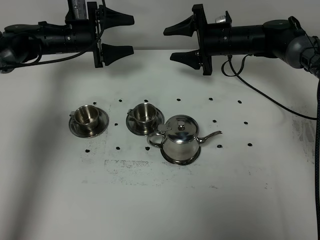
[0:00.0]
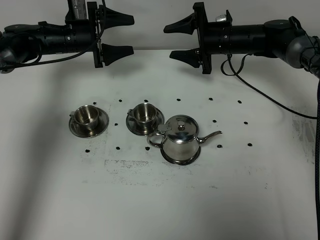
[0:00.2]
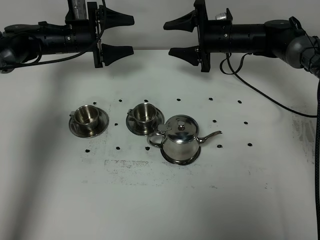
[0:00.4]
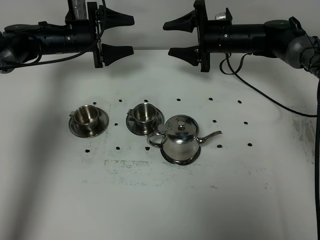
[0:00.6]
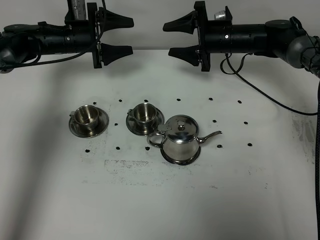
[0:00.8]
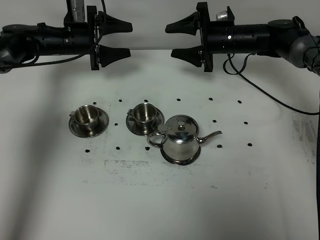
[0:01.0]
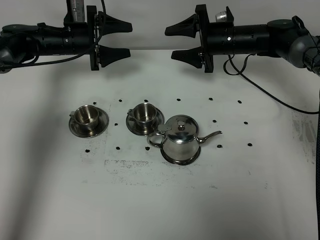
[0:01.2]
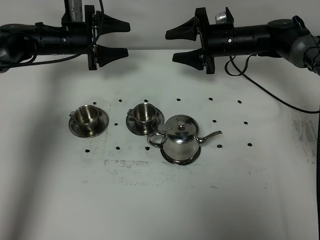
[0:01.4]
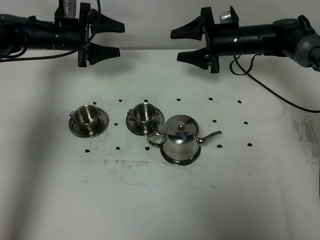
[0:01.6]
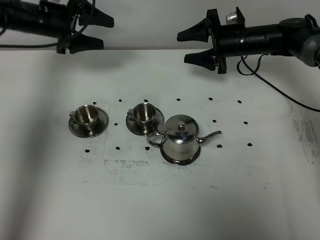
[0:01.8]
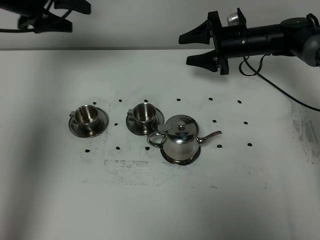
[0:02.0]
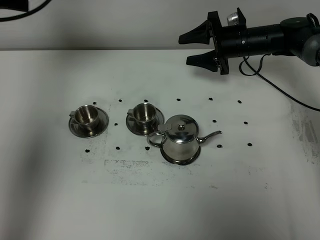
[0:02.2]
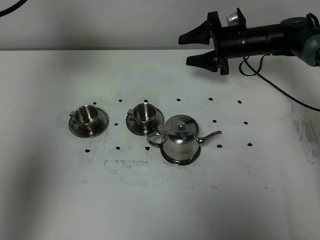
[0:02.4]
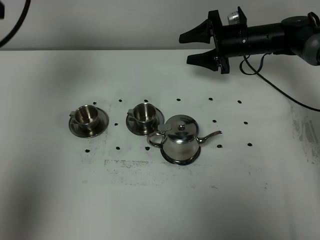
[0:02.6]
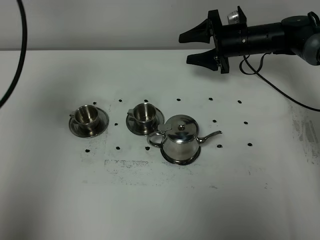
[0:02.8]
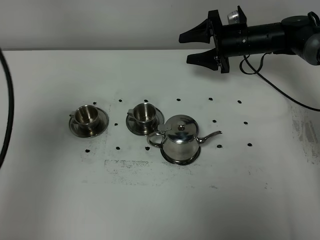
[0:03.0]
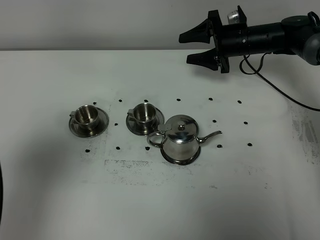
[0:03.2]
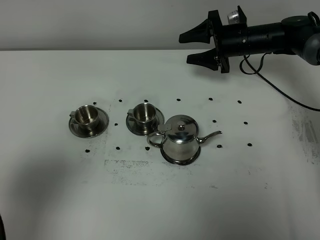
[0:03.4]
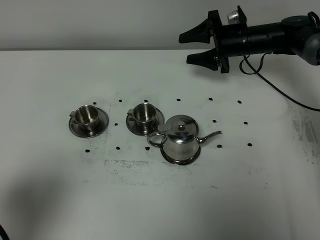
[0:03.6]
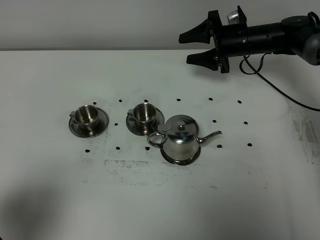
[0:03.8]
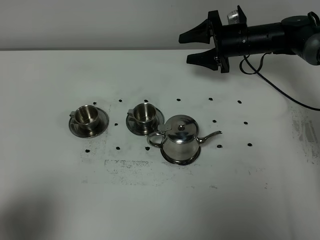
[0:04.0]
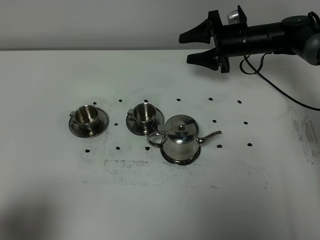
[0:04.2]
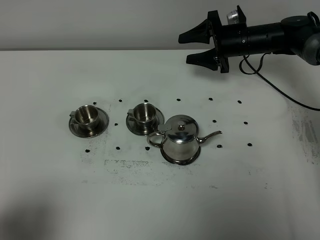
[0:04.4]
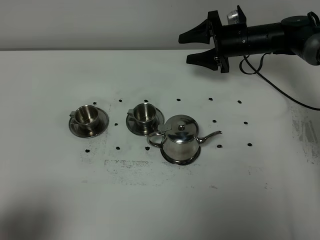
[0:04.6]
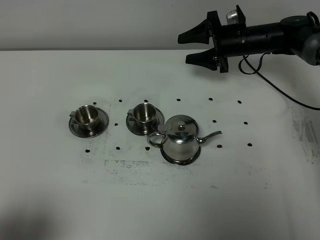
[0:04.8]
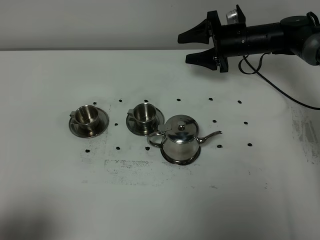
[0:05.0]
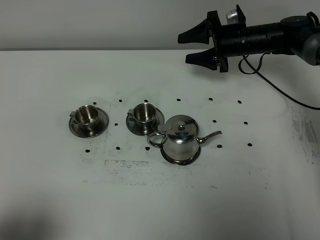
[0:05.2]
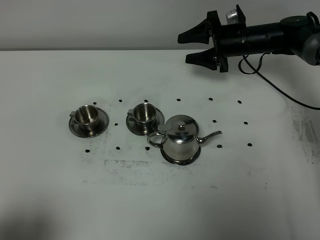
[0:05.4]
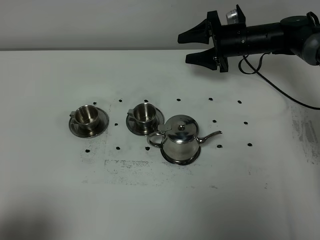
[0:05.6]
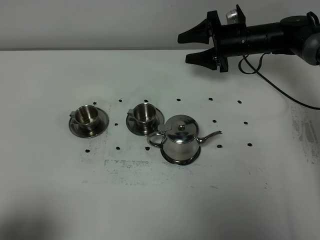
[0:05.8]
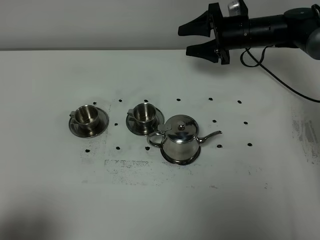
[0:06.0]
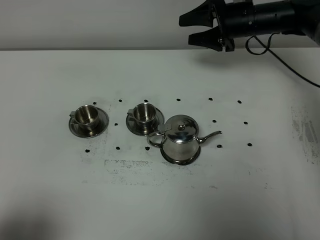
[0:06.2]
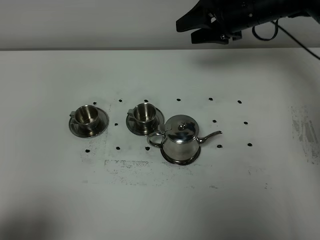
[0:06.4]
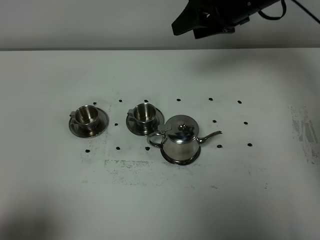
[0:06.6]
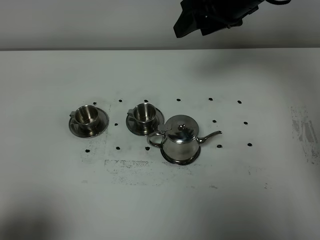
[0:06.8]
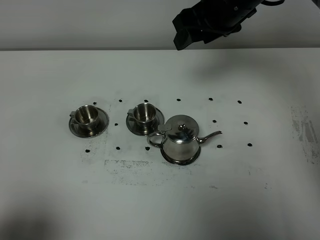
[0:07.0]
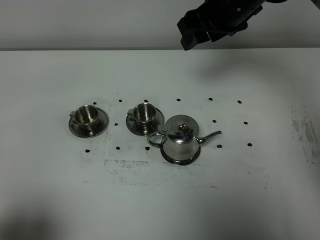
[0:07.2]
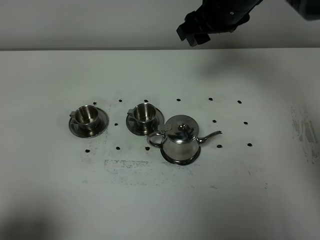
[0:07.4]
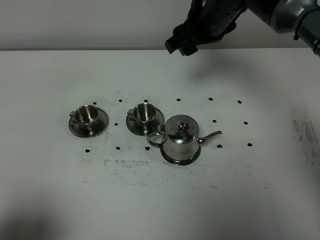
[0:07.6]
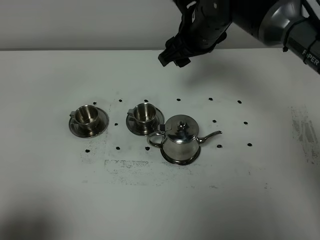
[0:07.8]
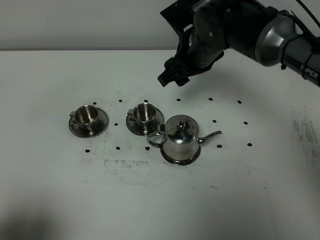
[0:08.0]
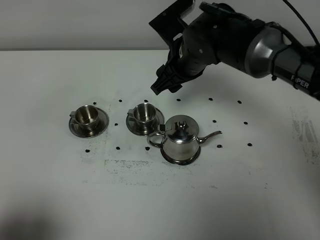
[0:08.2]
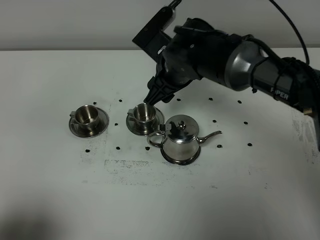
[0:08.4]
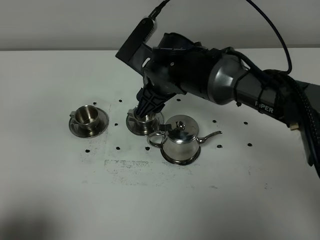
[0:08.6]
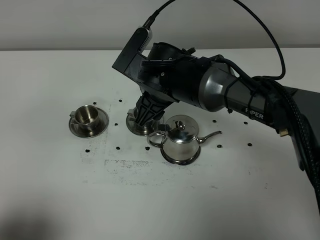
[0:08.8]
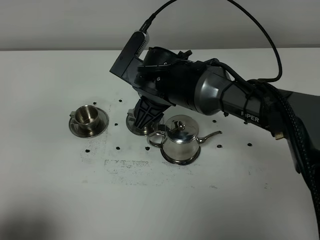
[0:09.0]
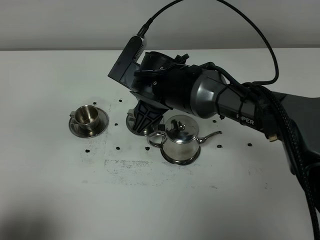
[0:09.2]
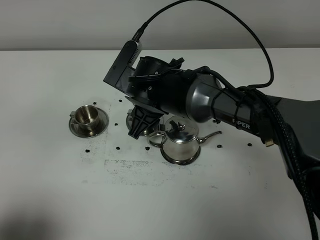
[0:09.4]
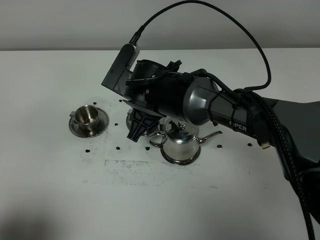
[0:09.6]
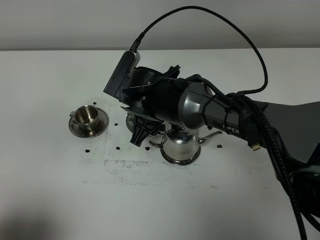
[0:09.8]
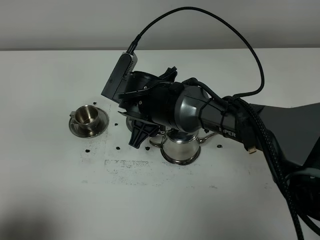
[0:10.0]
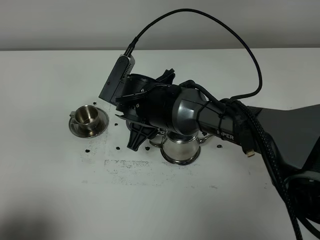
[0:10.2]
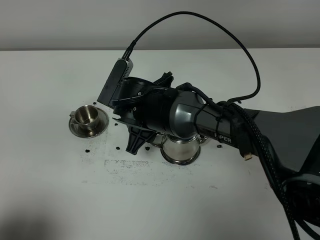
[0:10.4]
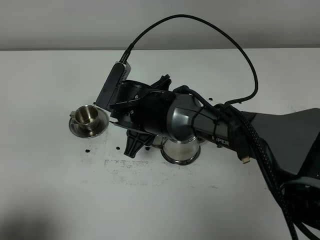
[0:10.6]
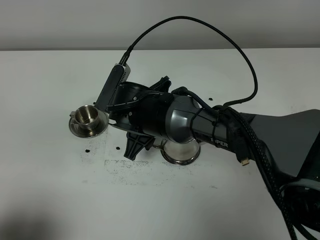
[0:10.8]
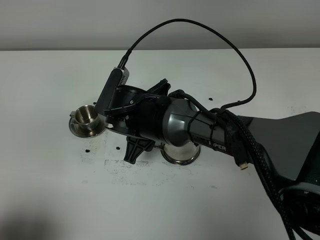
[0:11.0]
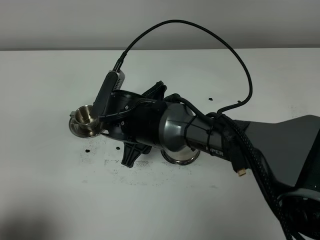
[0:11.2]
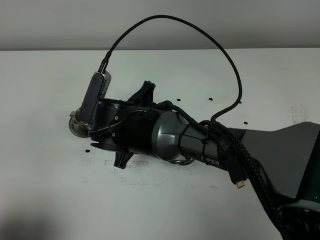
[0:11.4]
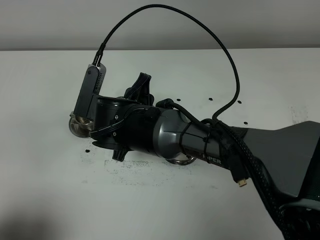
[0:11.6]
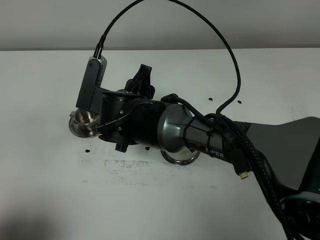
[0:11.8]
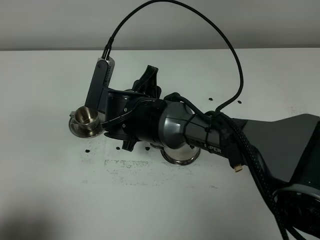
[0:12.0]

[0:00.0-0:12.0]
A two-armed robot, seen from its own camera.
Task of the whole recording: grasp the stainless steel teapot and pour the tea into the two stainless steel teacups one by one, put the stainless steel teapot back in its original place.
0:00.0 to 0:01.6: The grippers make only small movements.
0:01.6 to 0:03.0: The left gripper heads backward and upward, covering roughly 40 cm.
0:03.0 to 0:04.4: The left gripper shifts some 20 cm backward and downward.
0:04.4 to 0:06.0: The grippers stay close to where they were, moving slightly.
0:06.0 to 0:07.6: The right gripper is displaced upward, to the left and backward by about 15 cm.
0:07.6 to 0:09.0: The right gripper heads downward, to the left and backward, covering some 15 cm.
0:10.4 to 0:12.0: There are only small adjustments of the grippers.

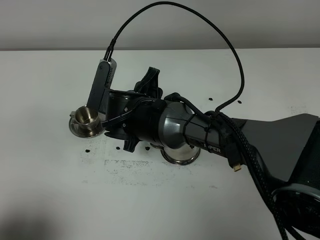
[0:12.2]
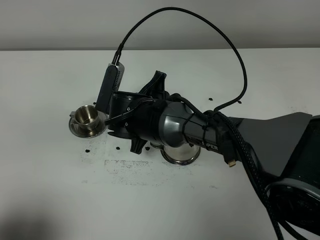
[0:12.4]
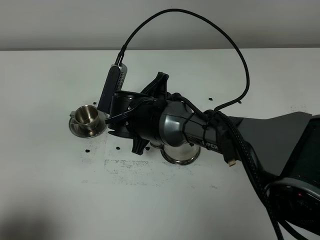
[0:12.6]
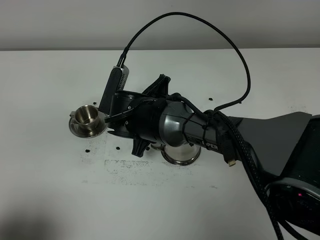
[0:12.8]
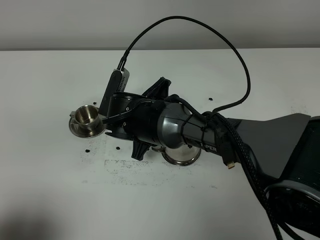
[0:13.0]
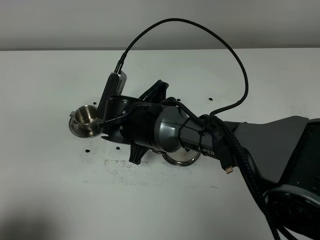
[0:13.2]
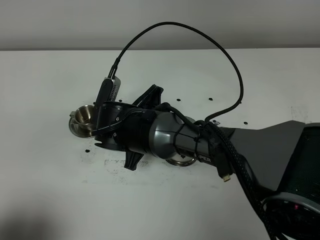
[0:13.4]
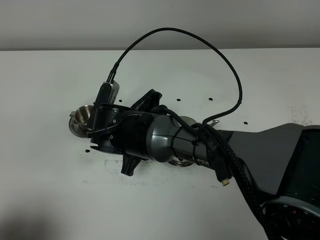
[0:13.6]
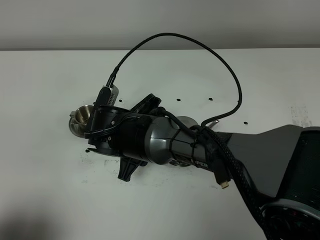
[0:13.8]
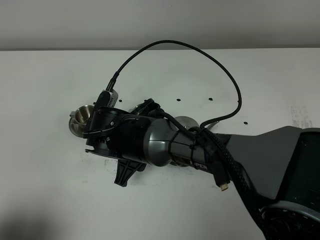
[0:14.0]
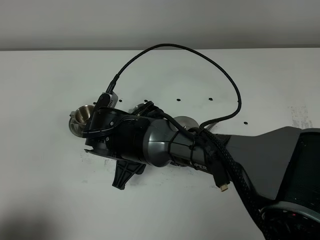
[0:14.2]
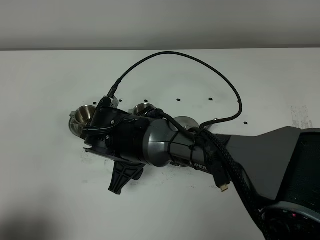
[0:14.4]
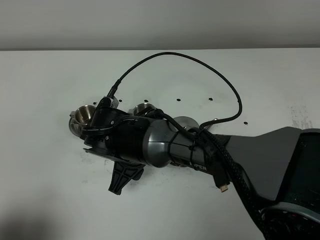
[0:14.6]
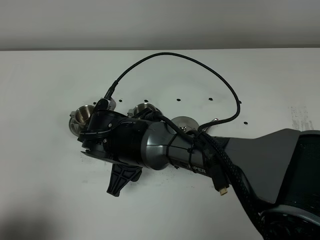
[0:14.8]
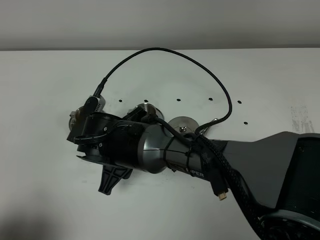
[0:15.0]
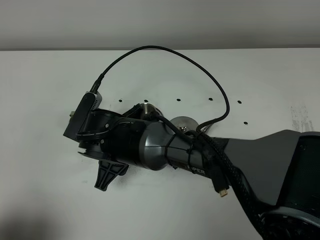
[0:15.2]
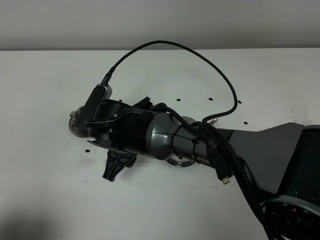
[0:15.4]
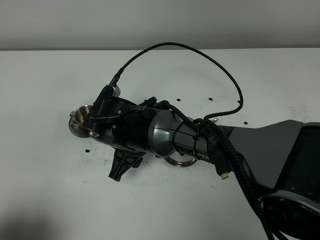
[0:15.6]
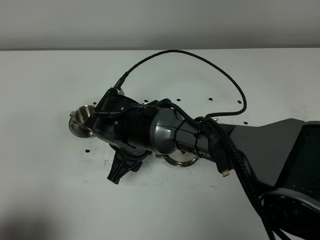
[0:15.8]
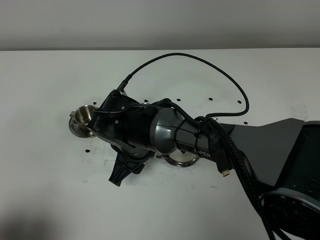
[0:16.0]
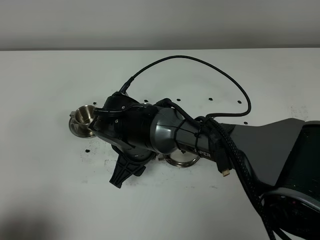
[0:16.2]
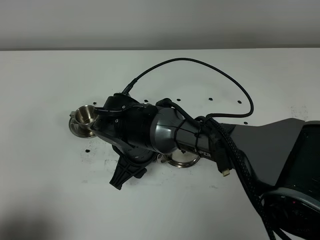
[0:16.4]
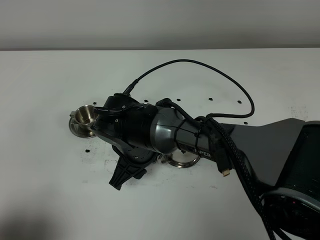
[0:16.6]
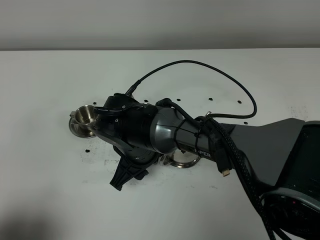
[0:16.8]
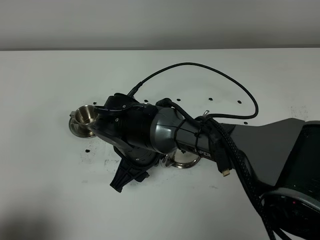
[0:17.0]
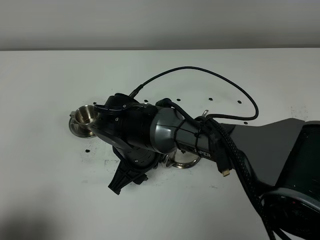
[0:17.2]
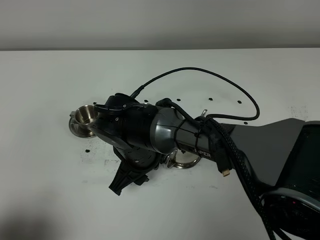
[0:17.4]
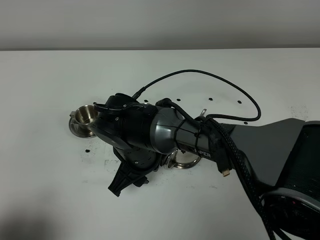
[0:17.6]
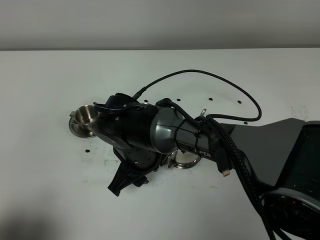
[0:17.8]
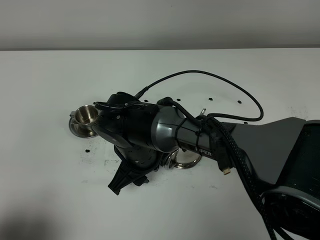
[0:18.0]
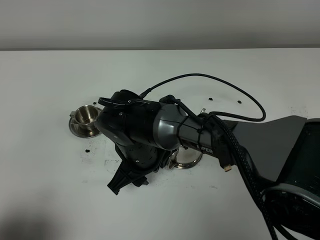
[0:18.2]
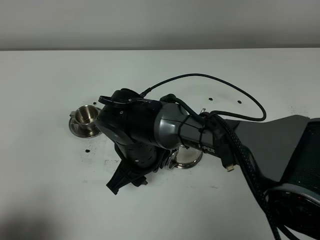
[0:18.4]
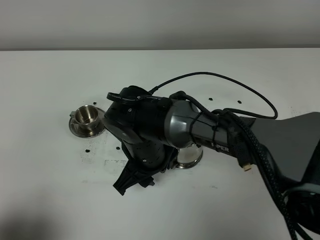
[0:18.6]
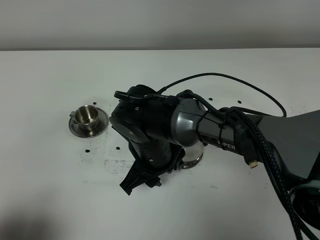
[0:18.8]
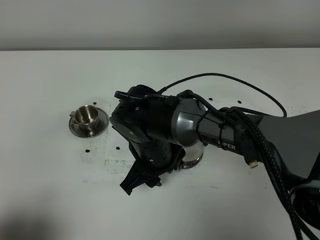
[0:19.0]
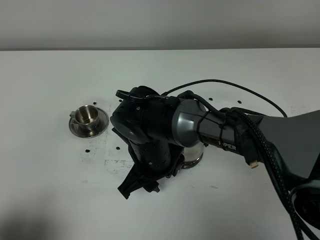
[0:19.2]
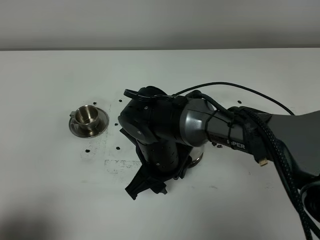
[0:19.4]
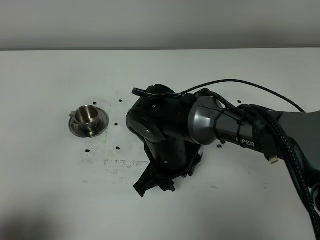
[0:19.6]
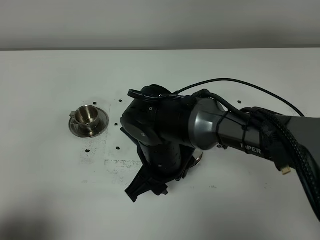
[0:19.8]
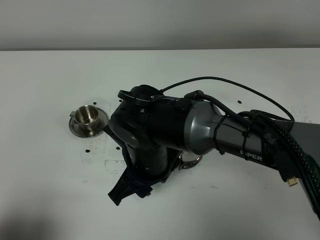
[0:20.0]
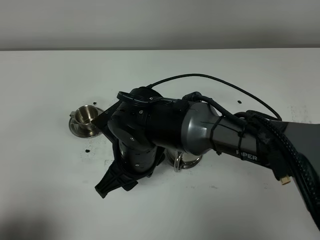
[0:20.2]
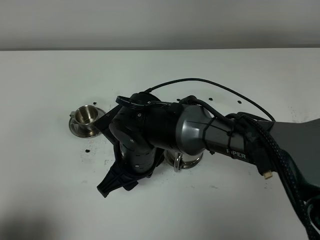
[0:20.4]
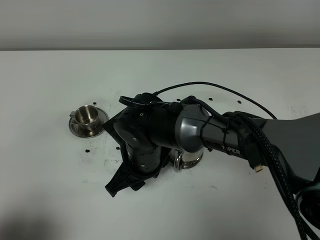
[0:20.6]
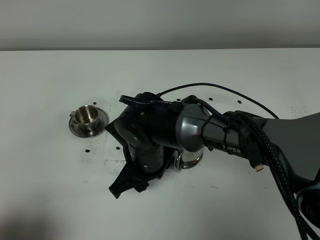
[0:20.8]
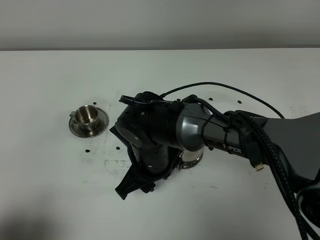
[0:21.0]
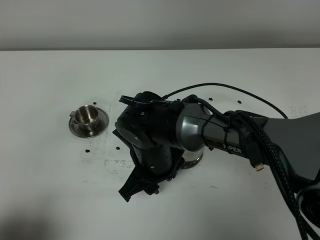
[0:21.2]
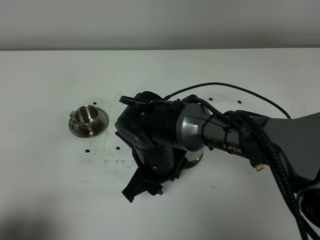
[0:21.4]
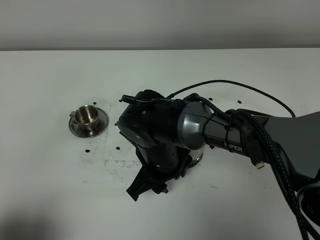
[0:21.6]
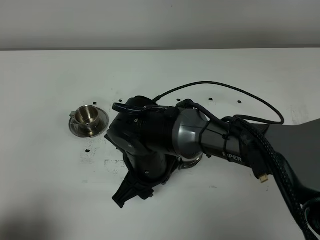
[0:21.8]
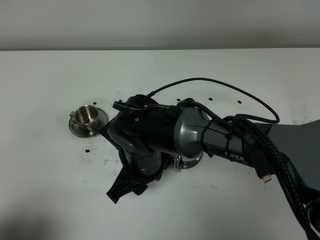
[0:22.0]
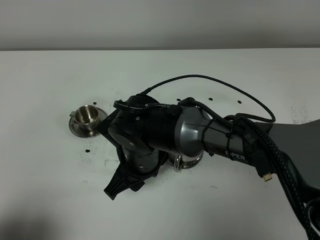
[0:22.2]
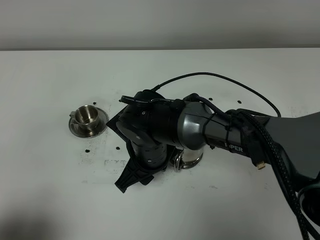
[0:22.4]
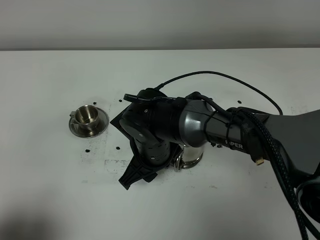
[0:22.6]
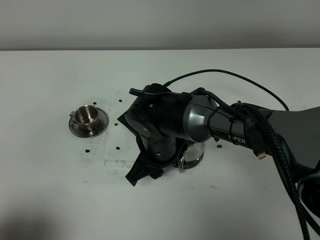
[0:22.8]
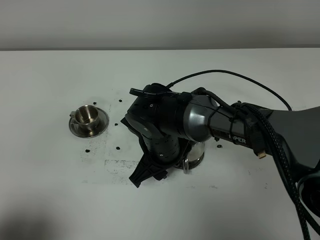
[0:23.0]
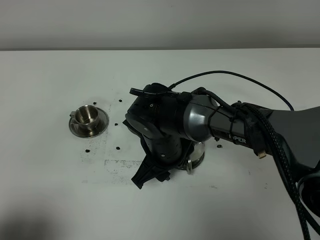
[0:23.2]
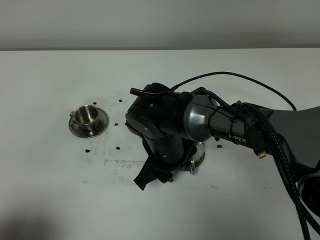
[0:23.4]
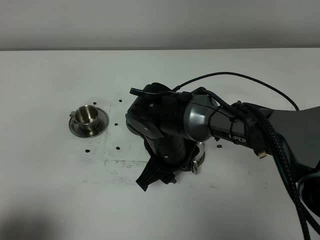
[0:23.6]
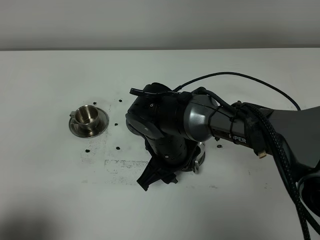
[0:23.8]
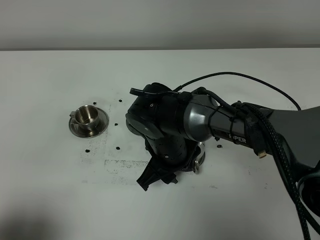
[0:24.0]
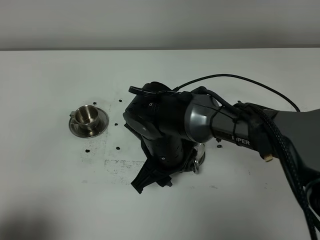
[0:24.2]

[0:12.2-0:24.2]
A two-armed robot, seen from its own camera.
Task of the whole recording: grasp the stainless steel teapot and pour the tea into the two stainless steel teacups one by one, put the stainless steel teapot back in its original place.
0:13.8 to 0:16.6: The grippers make only small movements.
0:16.6 to 0:18.2: The grippers move only a little.
0:18.2 to 0:19.8: The right gripper ends up approximately 5 cm from where it was.
0:19.8 to 0:24.2: The grippers move only a little.
